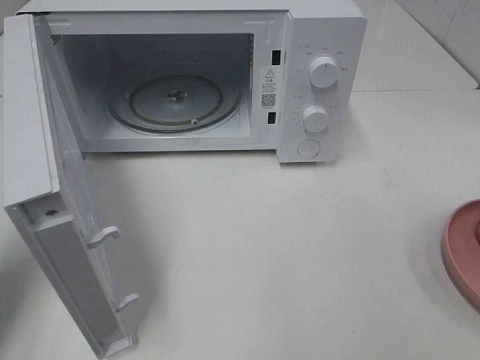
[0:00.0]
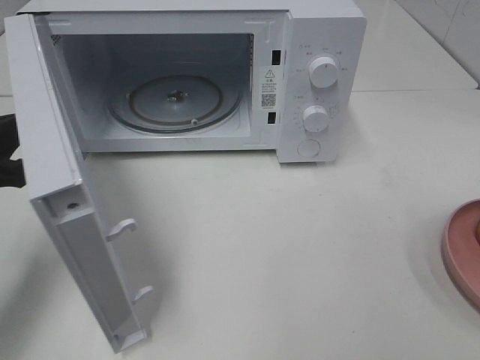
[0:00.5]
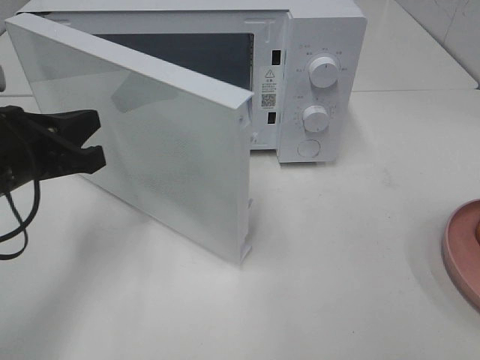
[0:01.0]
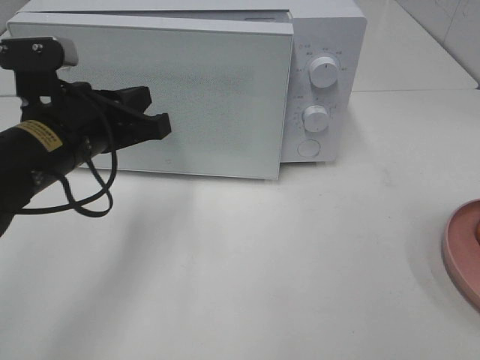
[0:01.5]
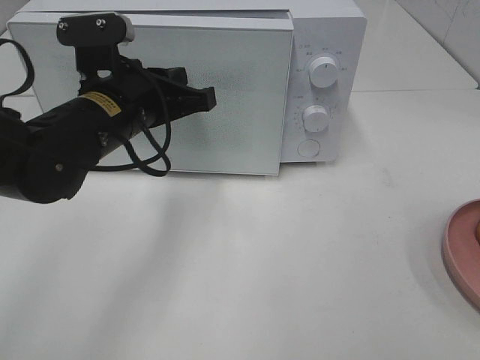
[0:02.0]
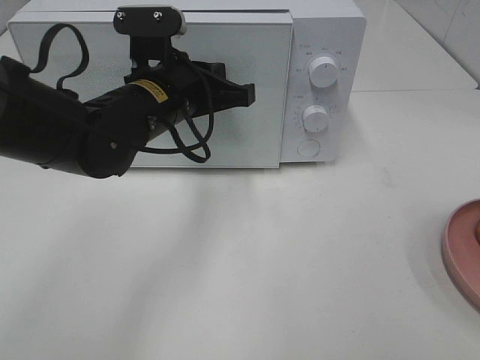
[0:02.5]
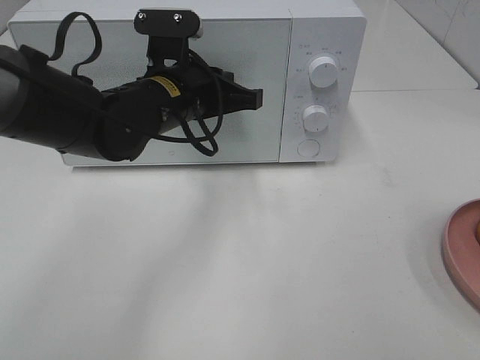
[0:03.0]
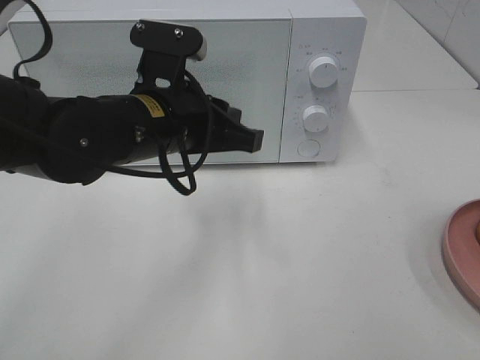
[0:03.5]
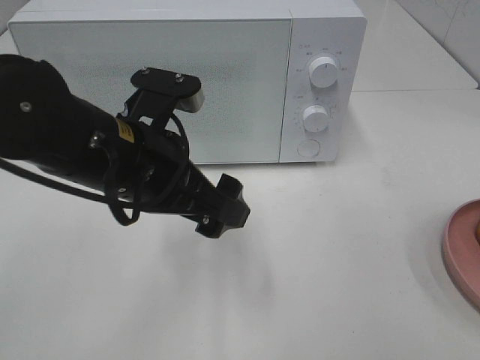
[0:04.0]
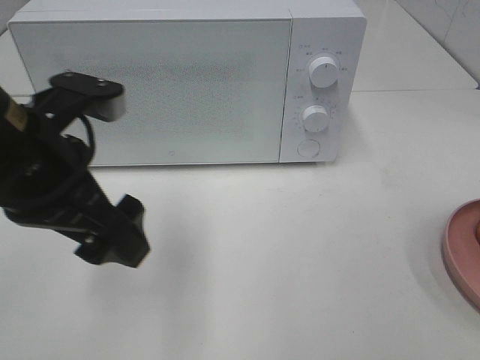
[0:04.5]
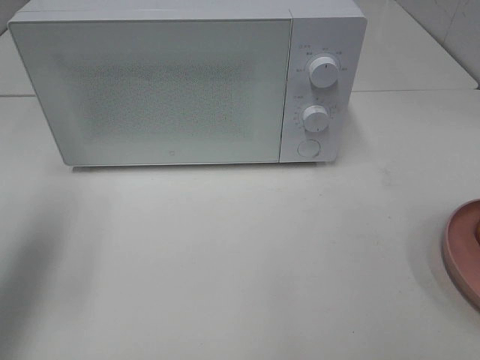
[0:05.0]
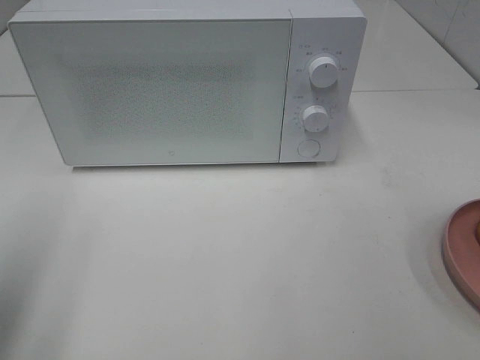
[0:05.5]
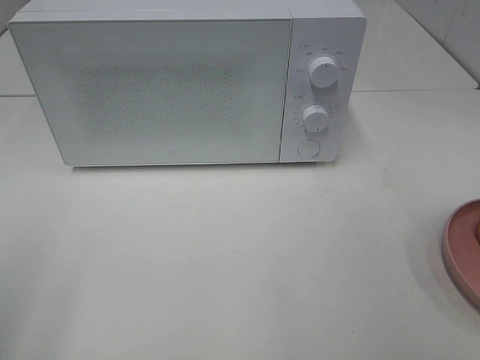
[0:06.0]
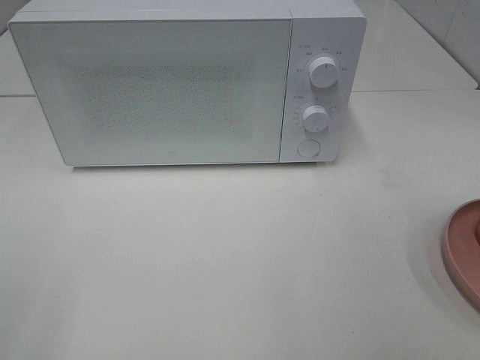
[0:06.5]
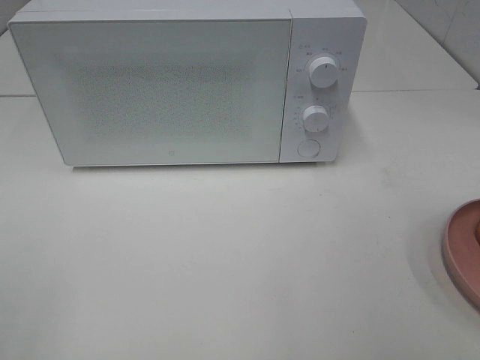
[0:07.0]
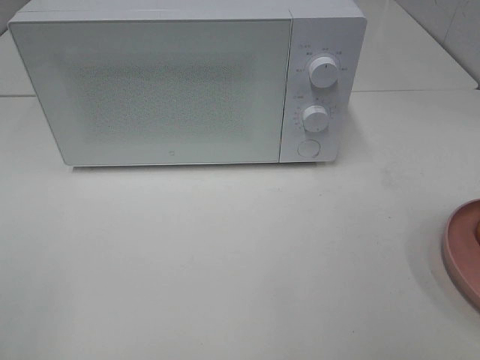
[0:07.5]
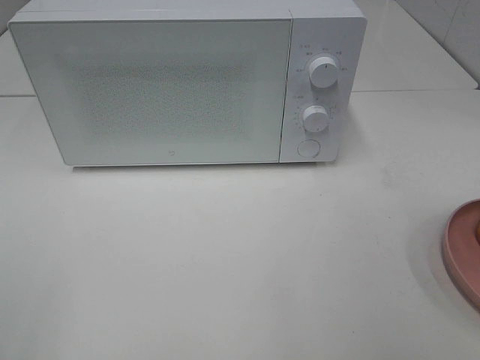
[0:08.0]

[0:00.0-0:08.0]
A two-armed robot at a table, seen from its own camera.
Task of the whole recording: Heat the burger.
Step, 0:00.0 to 0:03.0: Left hand: close the microwave door.
0:00.0 to 0:02.0: The left gripper heads to the right and forward, covering about 20 cm.
0:02.0 to 0:04.0: The left gripper goes about 5 cm backward, and opens up.
0:04.0 to 0:06.0: The left gripper heads to the left and backward, covering roughly 30 cm.

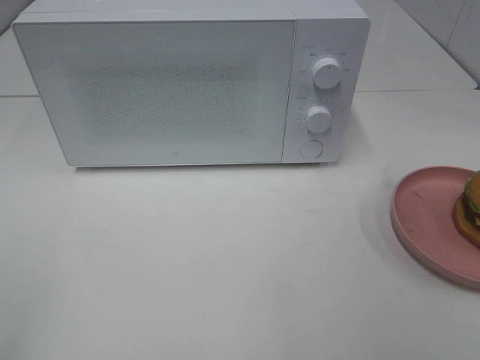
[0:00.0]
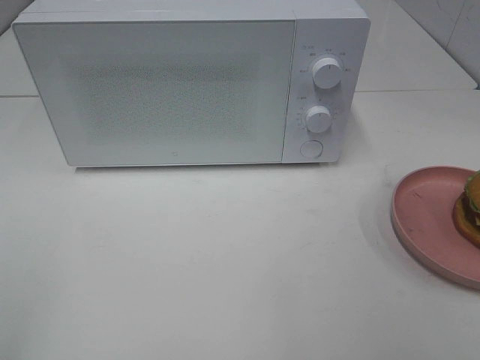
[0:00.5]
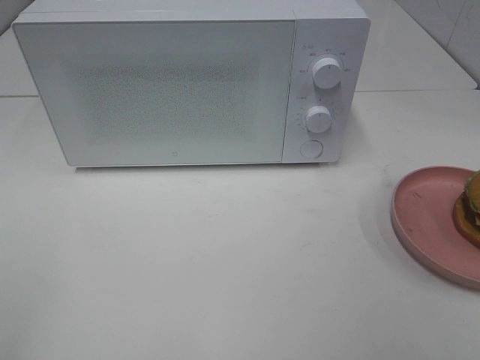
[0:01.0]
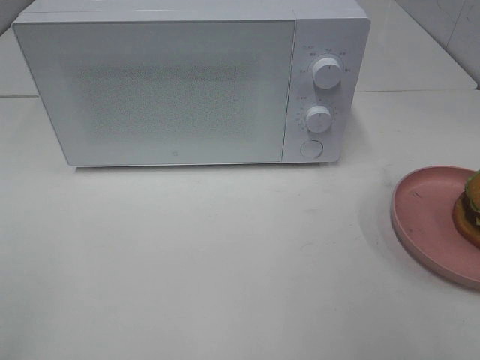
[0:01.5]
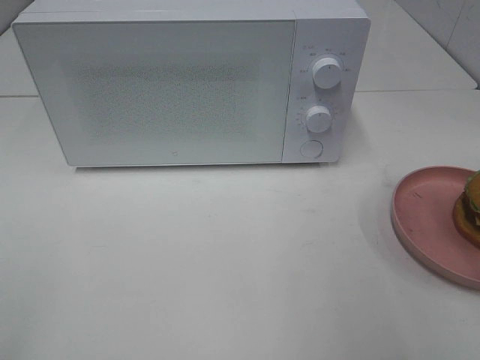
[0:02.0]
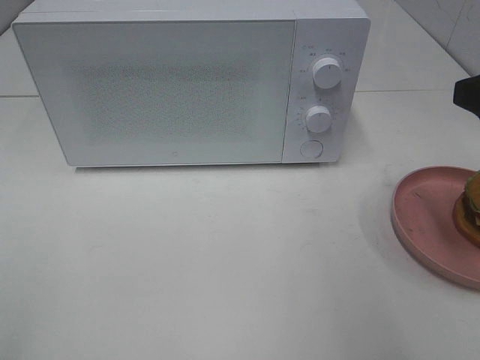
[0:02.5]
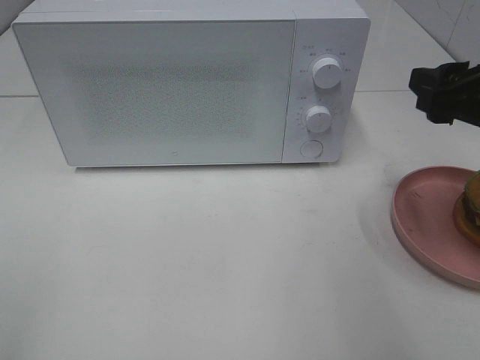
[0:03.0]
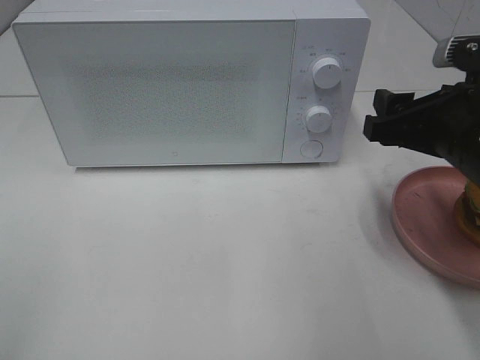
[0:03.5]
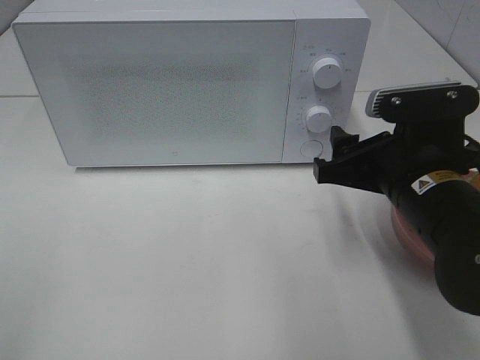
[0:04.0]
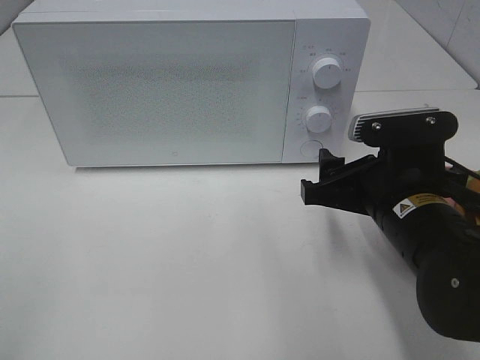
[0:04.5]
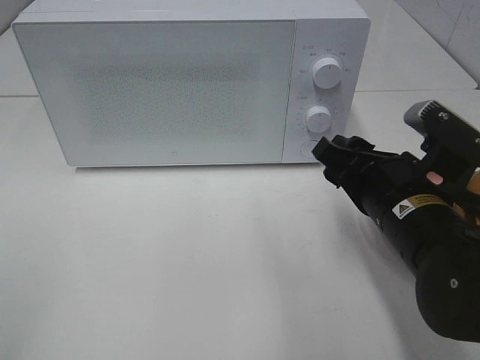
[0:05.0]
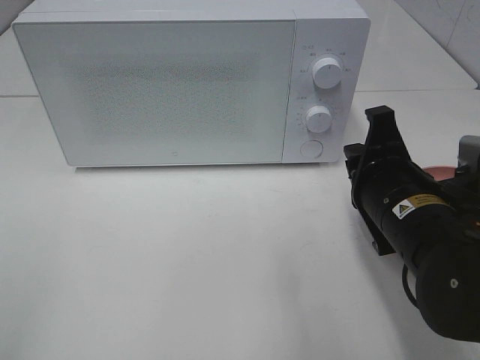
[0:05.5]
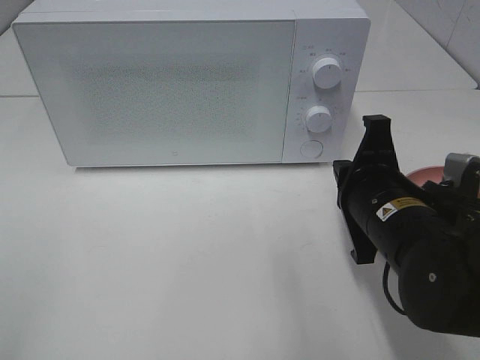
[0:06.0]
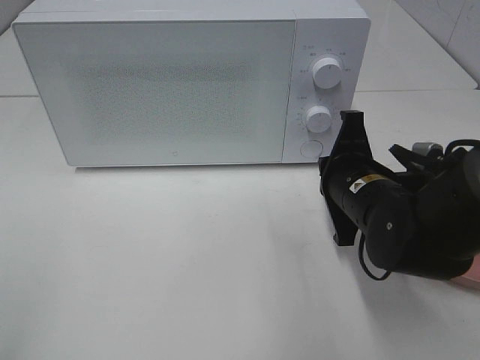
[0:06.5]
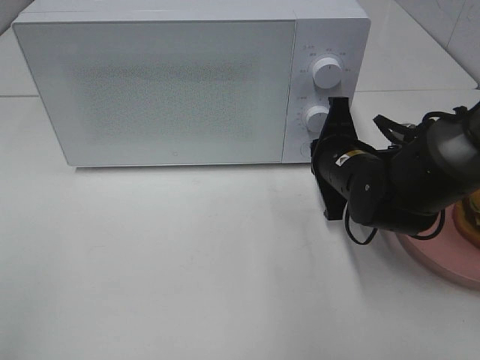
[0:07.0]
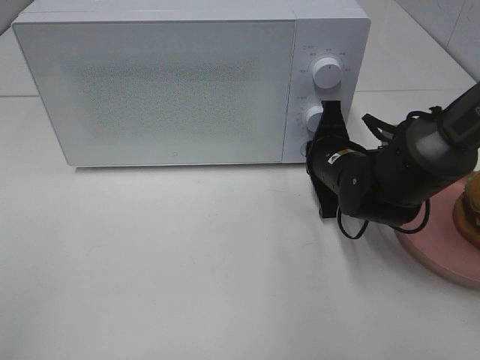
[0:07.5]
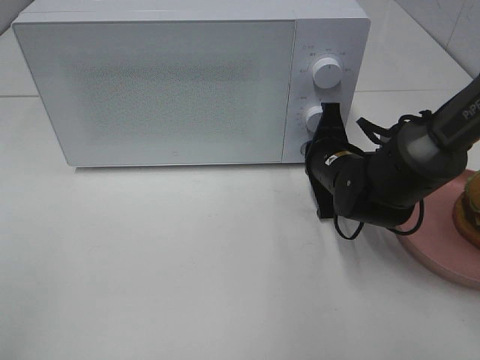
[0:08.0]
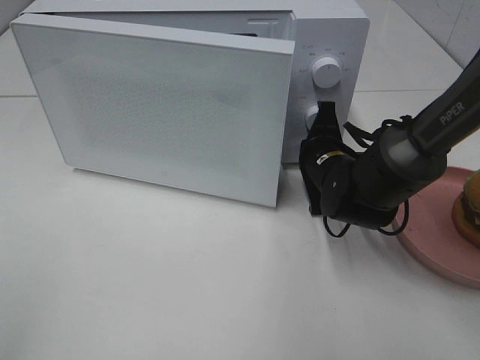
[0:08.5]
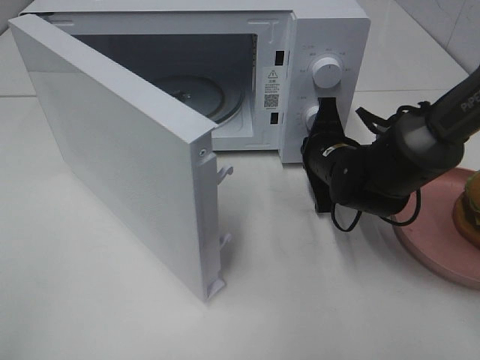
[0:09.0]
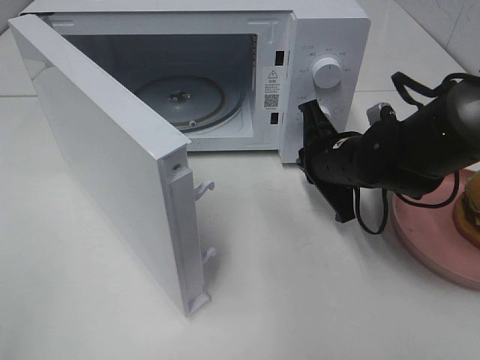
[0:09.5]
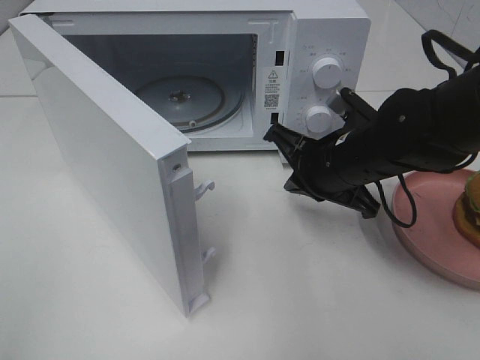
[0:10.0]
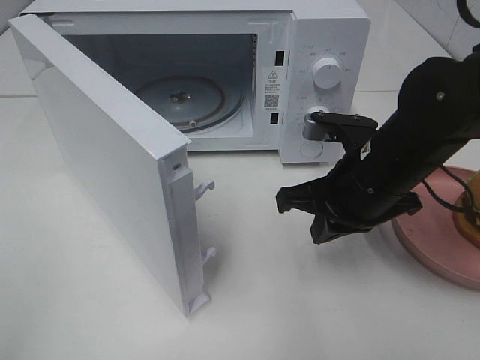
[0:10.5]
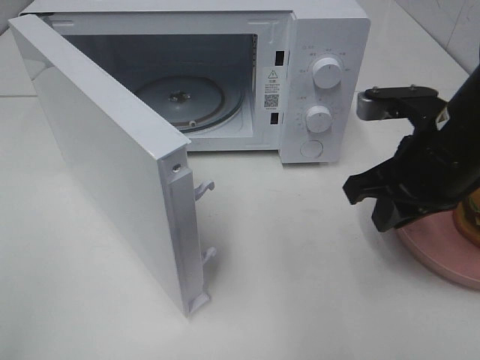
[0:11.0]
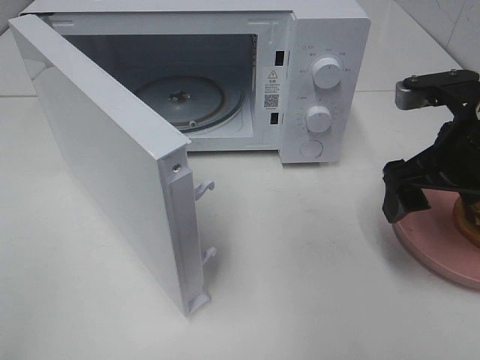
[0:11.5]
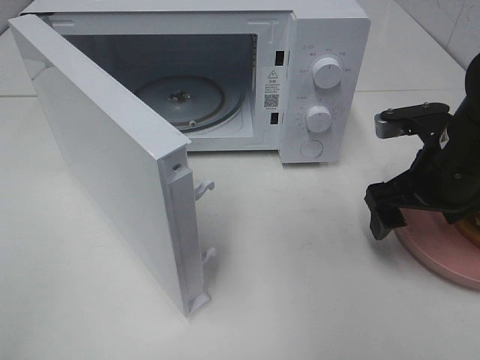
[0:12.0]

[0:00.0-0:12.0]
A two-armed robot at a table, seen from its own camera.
Task of the whole recording: Heat the burger.
Step, 0:00.0 to 0:09.5: Right hand: press the switch.
0:02.0 to 0:04.0: The right gripper moves downward, to the left and forward, about 20 cm.
0:04.0 to 0:06.0: The right gripper closes its fingers.
0:06.0 to 0:08.0: The right gripper is displaced forward by roughly 10 cm.
0:08.0 to 0:10.0: The right gripper goes about 5 cm upward.
0:10.0 to 0:12.0: The right gripper moves to the right, some 10 cm, and opens up.

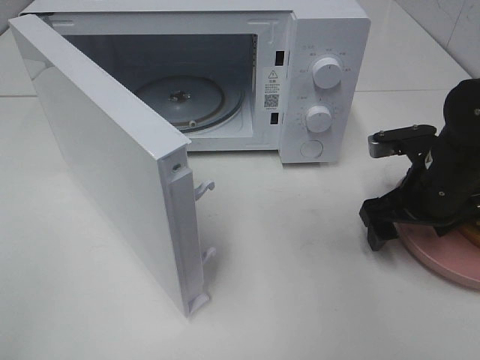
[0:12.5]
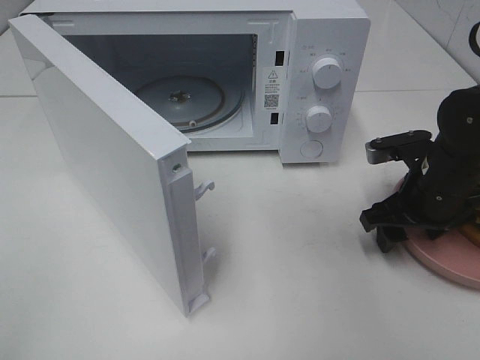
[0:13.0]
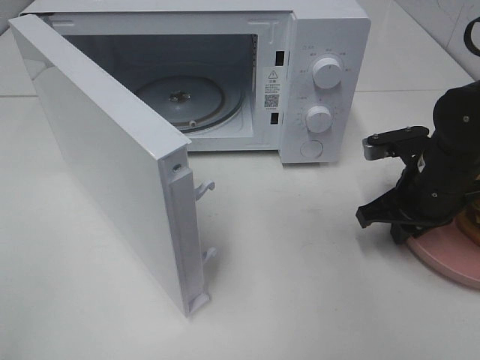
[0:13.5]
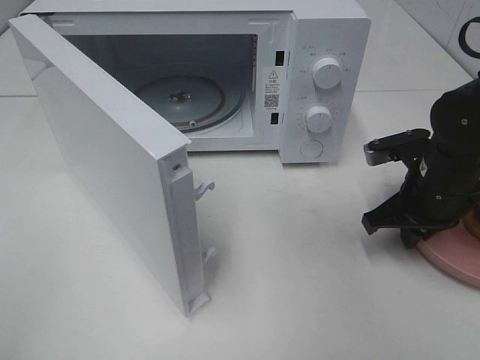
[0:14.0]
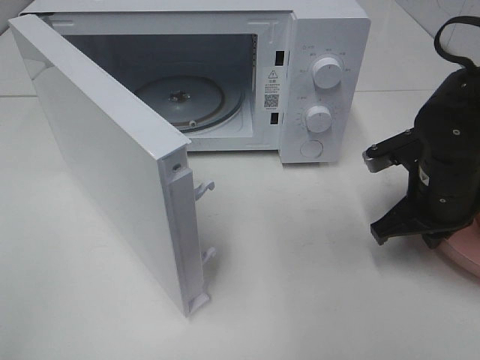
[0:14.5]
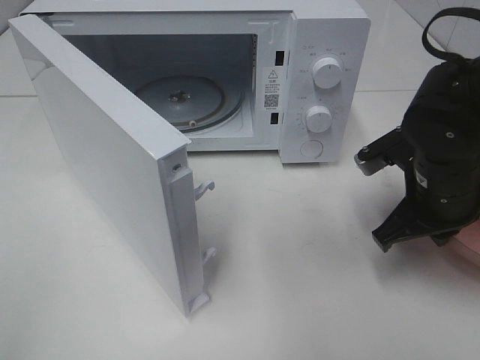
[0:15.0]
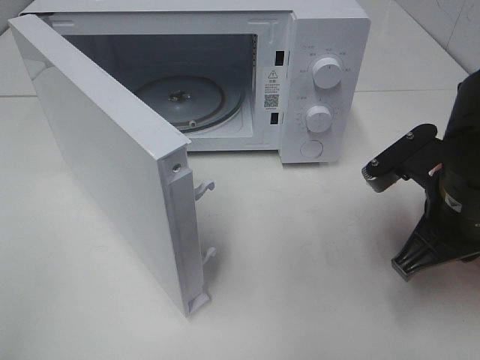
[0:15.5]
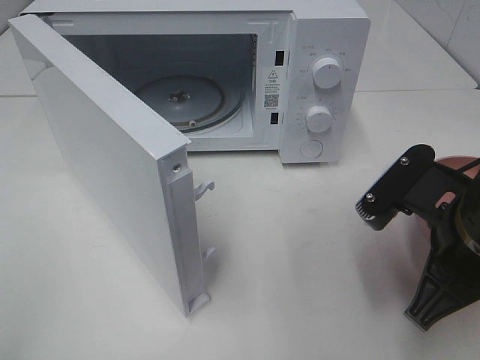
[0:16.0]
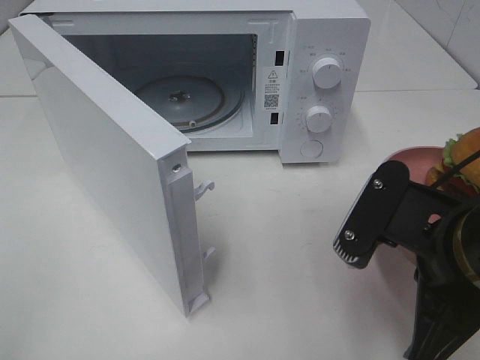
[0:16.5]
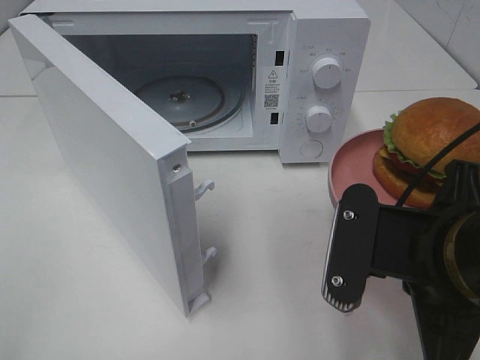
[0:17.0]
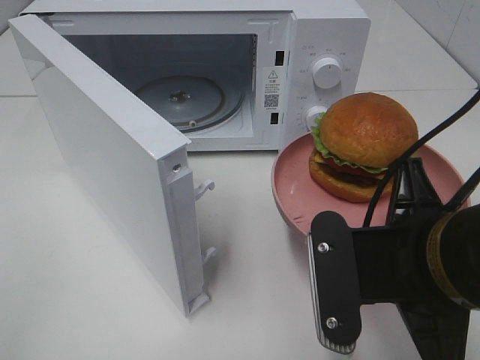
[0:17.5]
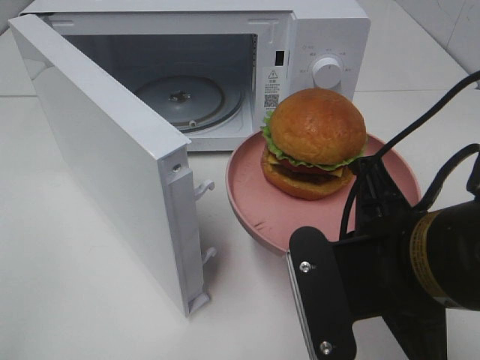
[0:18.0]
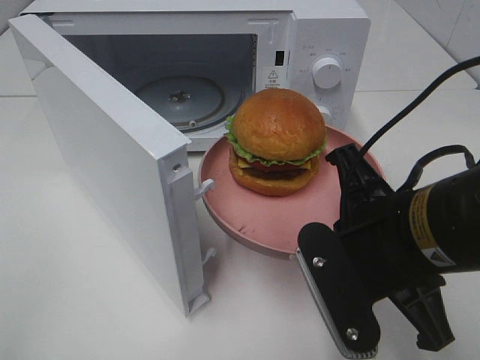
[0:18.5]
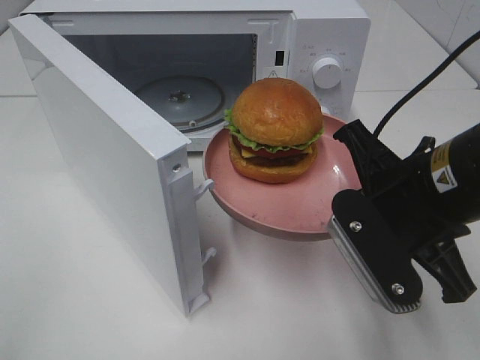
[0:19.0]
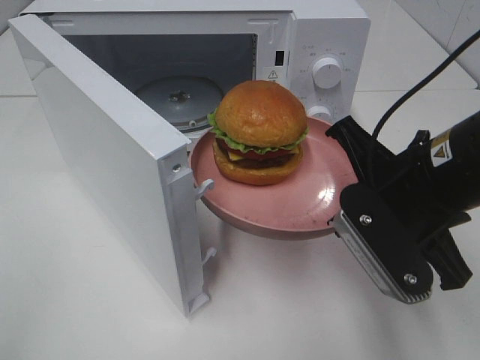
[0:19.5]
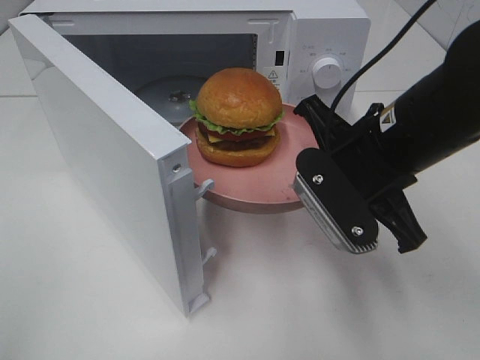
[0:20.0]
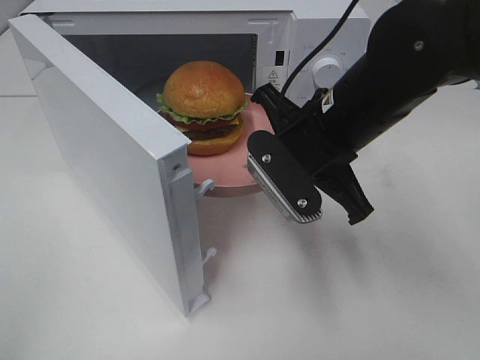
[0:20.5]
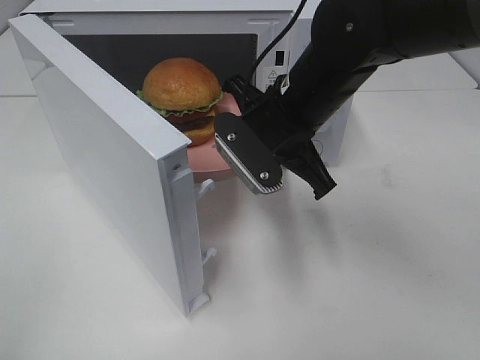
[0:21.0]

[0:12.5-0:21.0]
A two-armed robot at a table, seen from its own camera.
Task of the whole recording: Heat the burger.
0:12.5 to 0:14.5: The right gripper closes its fingers.
0:14.5 to 0:16.5: The right gripper goes about 15 cm backward, upward and to the left.
0:16.5 to 0:19.0: The right gripper heads forward, covering approximately 5 cm.
0:19.0 to 0:21.0: The right gripper moves forward and to the left, some 15 cm.
